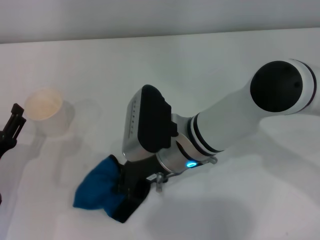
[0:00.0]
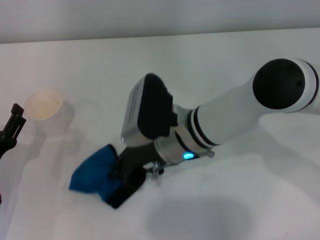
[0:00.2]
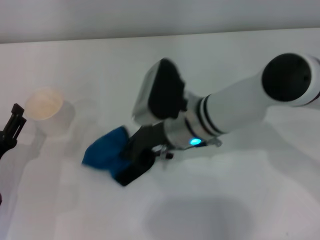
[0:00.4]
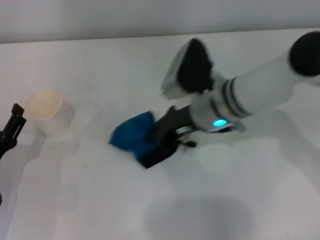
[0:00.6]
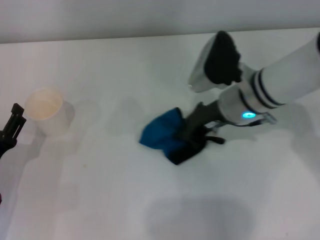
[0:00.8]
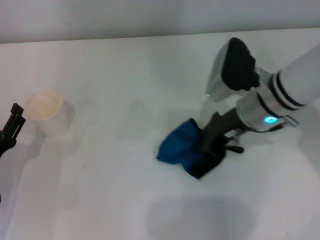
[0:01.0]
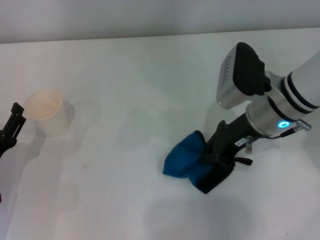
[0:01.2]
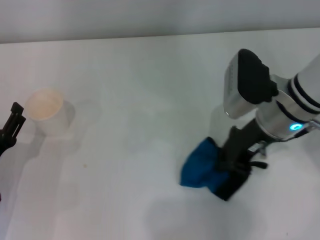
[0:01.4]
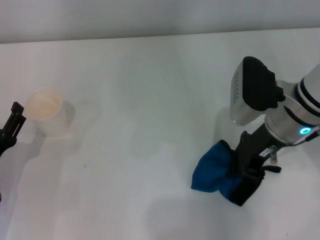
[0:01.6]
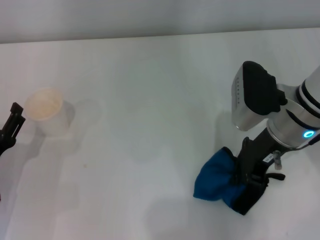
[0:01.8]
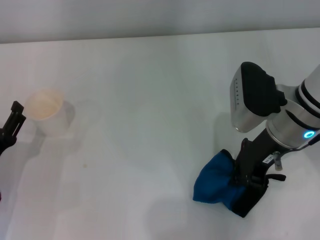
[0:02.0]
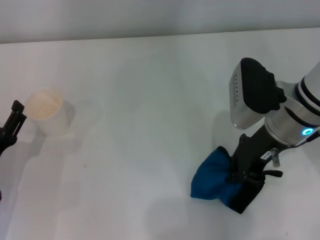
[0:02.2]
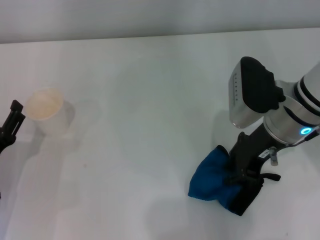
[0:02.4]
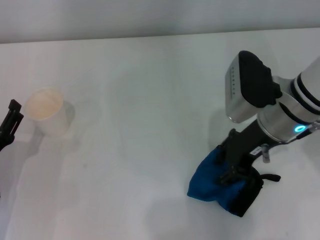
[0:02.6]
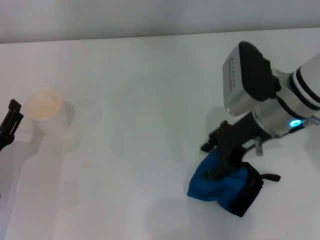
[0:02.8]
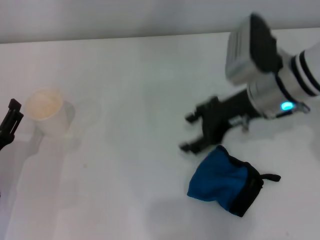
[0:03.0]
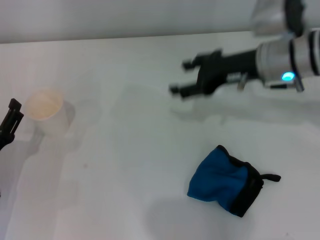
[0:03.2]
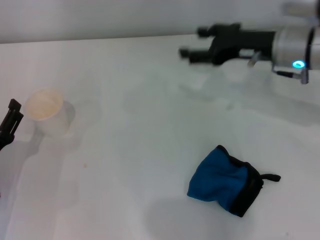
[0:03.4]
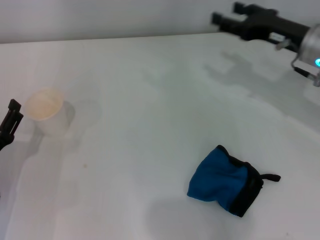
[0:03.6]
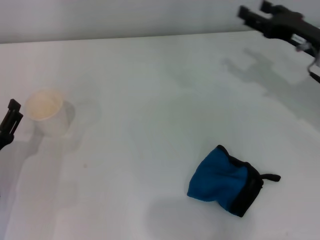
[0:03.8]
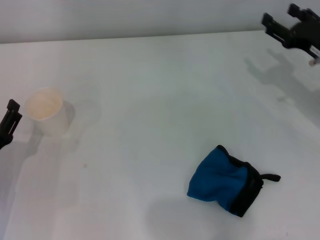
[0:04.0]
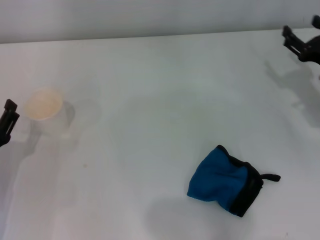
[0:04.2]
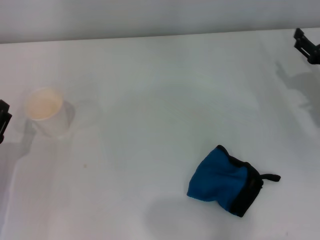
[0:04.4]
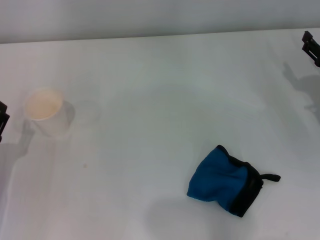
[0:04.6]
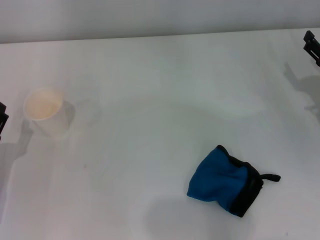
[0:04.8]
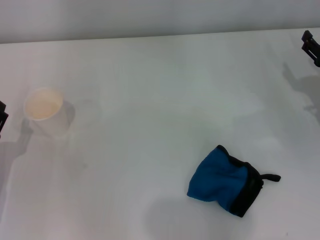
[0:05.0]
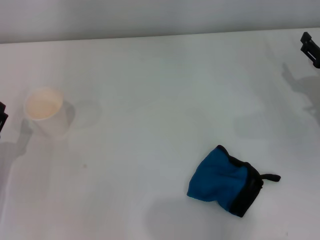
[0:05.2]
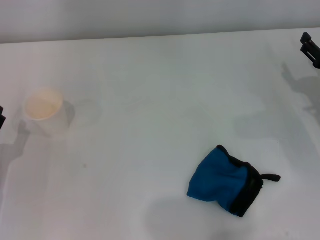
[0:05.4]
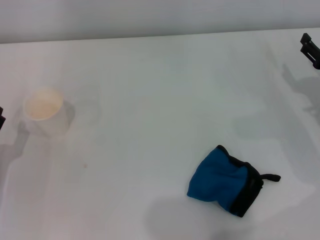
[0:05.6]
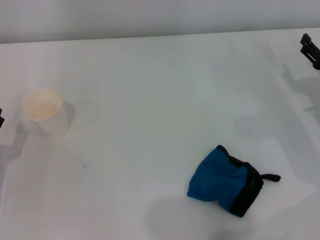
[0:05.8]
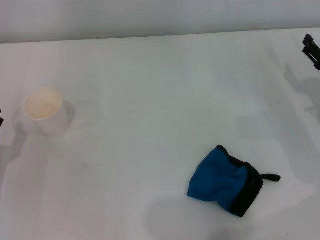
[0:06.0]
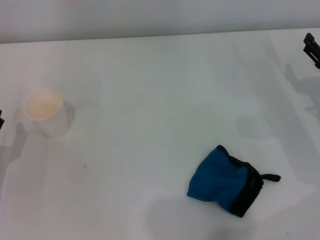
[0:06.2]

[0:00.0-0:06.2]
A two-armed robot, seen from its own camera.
Step, 0:01.0 to 0:02.2: Place the rag on the table with the right gripper.
0:00.0 to 0:01.6: The right gripper is displaced to the right by some 15 cm.
0:01.6 to 0:03.2: The right gripper moves approximately 5 cm, and opens.
0:03.2 to 0:04.6: The right gripper travels to the right and downward by roughly 20 cm.
0:04.6 to 0:06.2: Both grippers stay put.
